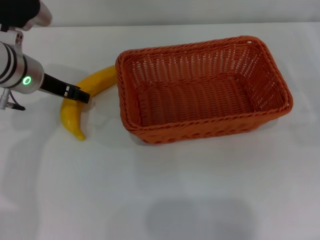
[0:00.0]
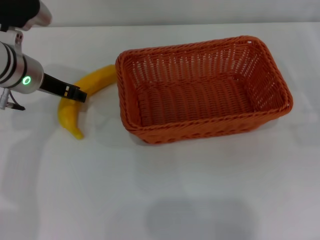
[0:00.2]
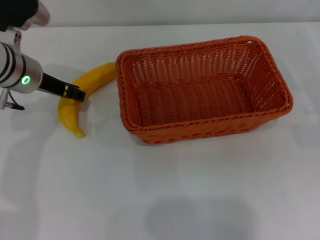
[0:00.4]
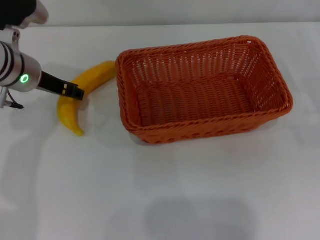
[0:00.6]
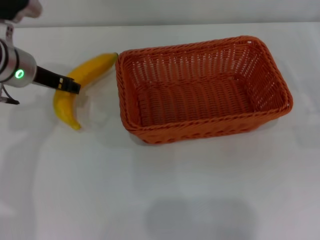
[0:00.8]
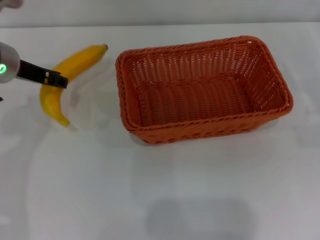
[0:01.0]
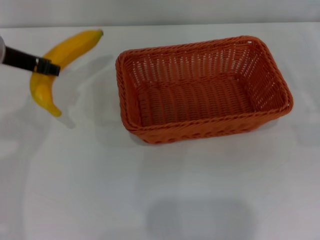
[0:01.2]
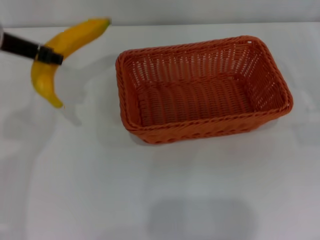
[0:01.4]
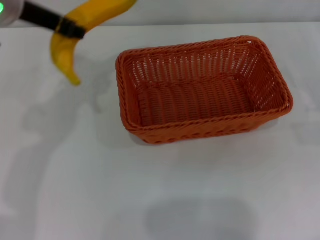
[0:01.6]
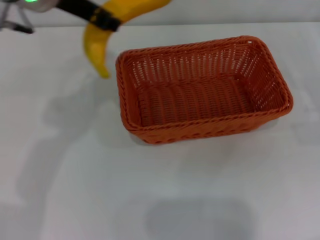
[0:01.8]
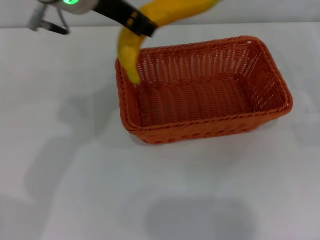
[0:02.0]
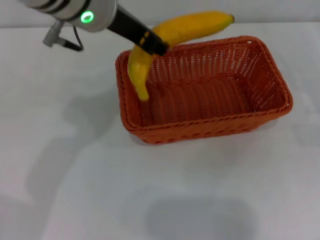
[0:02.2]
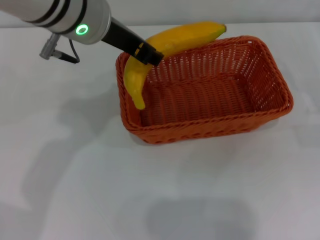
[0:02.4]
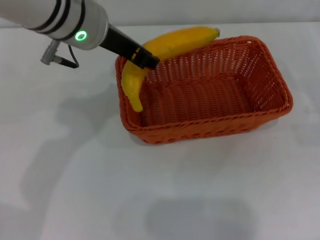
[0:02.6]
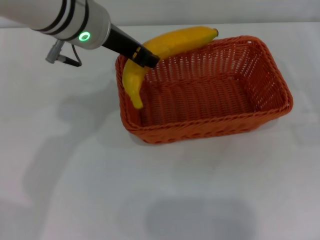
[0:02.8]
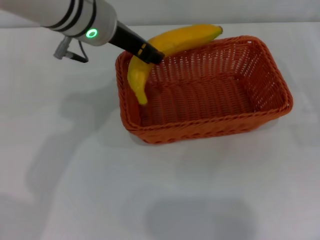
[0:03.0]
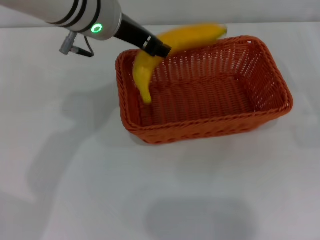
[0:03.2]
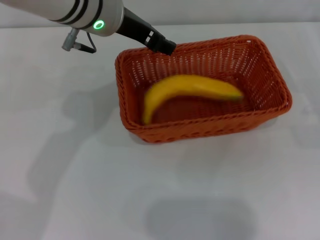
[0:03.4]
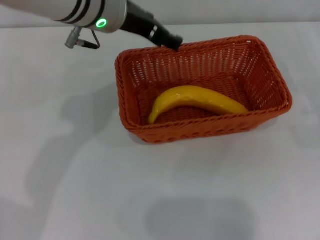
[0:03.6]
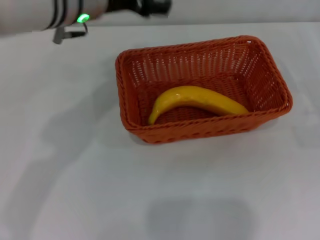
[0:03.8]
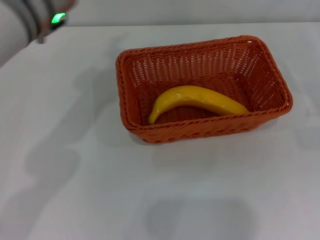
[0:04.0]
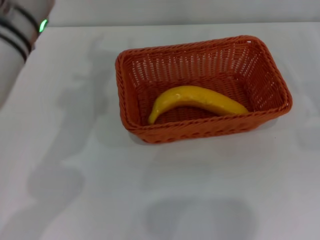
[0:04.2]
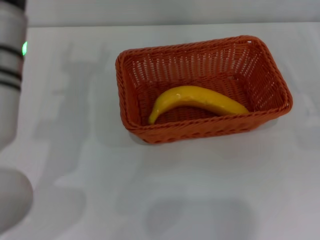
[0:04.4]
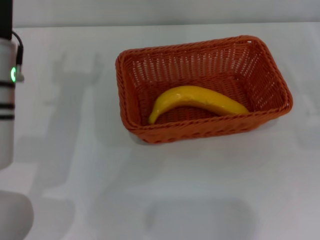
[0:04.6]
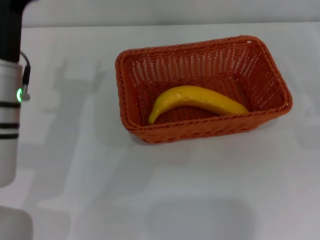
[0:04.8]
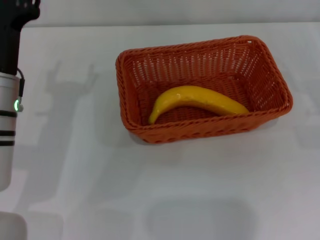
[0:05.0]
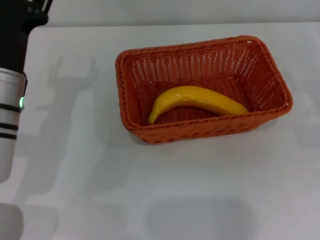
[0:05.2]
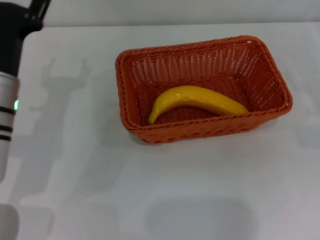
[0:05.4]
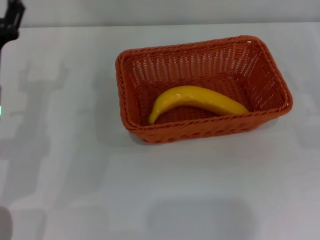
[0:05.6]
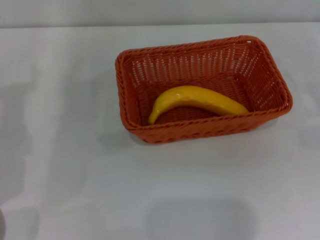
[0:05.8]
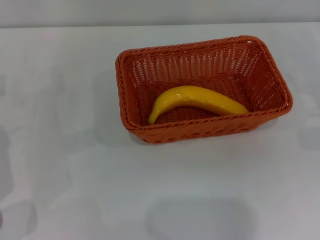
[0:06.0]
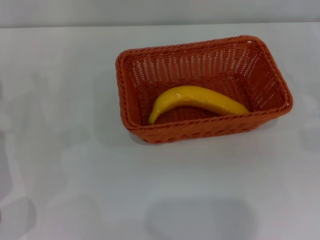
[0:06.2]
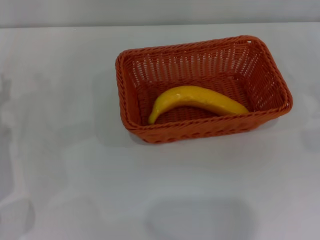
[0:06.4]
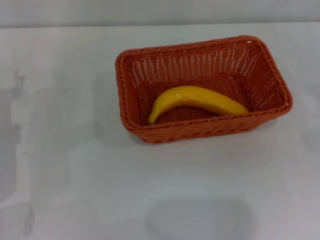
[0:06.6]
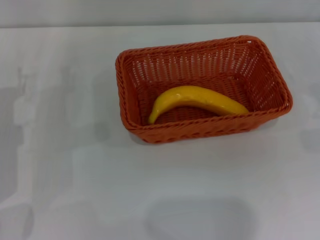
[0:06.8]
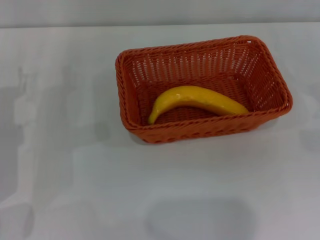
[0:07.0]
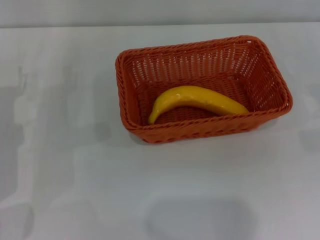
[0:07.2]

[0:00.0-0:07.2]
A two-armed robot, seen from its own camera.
Step, 0:01.2 to 0:03.4: Place the banana into the light basket with the left gripper.
0:00.0 to 0:01.4: The left gripper travels upward by about 10 cm, and closes up.
0:01.4 to 0:02.8: The left gripper moves to the right, approximately 10 cm.
0:02.8 to 0:04.4: The left gripper moves to the left and backward, approximately 10 cm, and opens its fingers.
0:04.4 to 0:05.8: The left gripper goes about 15 cm downward and to the left.

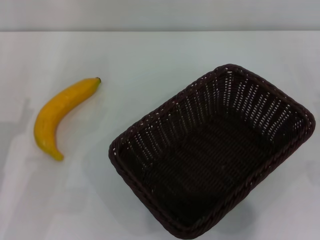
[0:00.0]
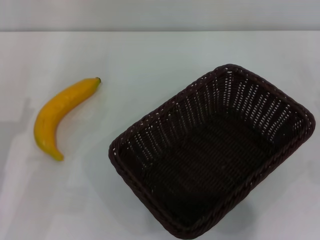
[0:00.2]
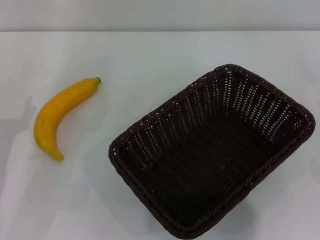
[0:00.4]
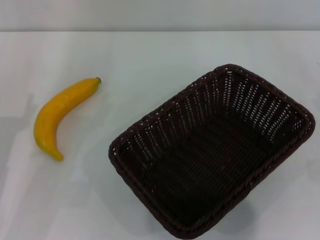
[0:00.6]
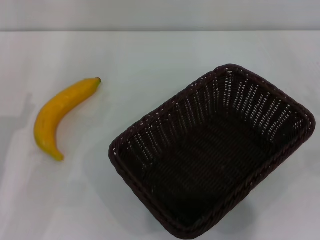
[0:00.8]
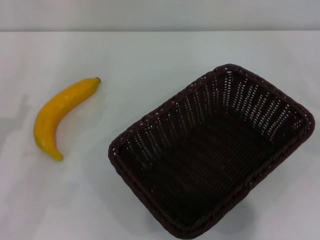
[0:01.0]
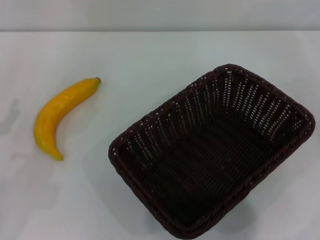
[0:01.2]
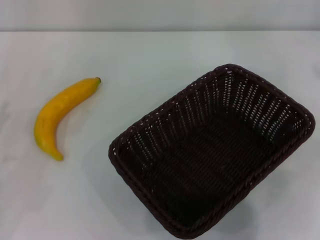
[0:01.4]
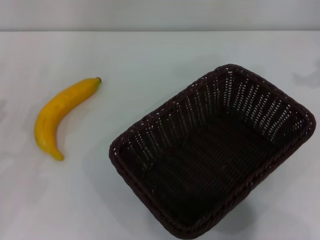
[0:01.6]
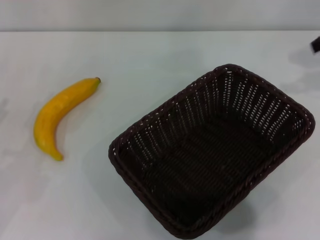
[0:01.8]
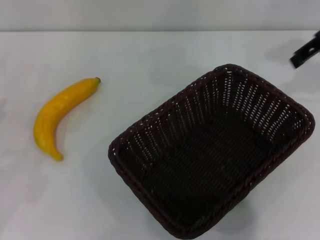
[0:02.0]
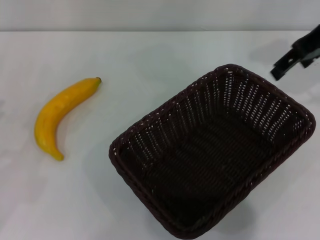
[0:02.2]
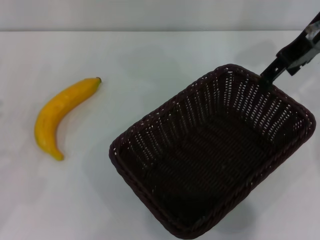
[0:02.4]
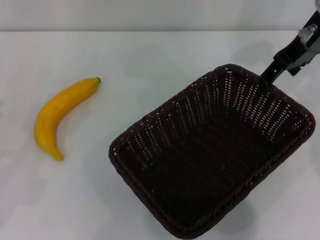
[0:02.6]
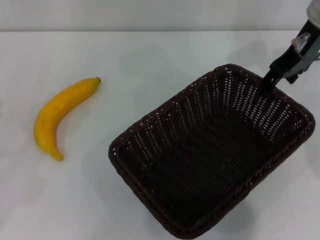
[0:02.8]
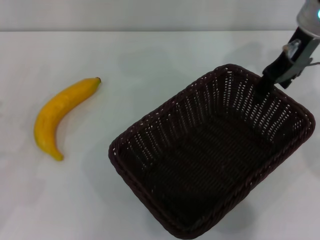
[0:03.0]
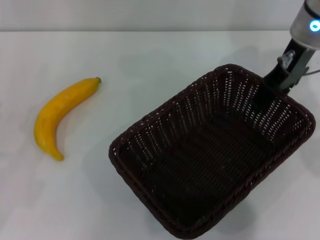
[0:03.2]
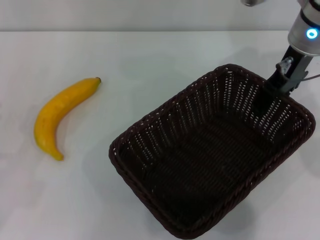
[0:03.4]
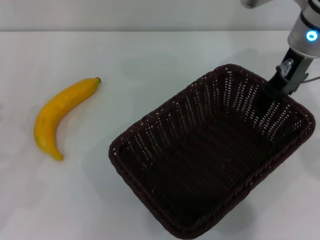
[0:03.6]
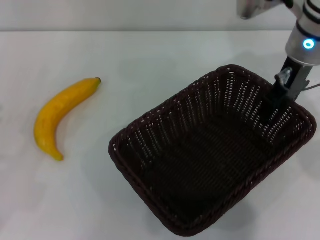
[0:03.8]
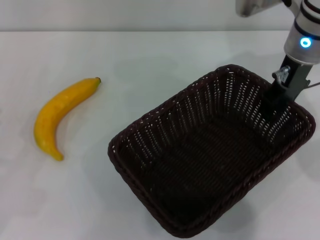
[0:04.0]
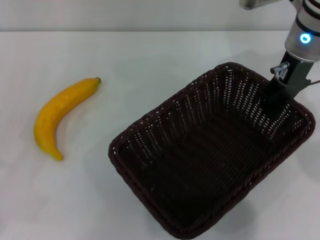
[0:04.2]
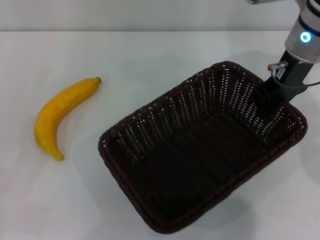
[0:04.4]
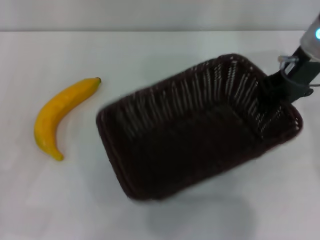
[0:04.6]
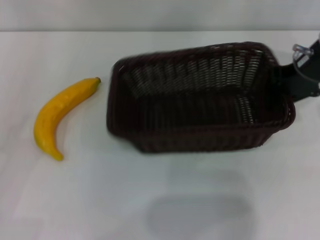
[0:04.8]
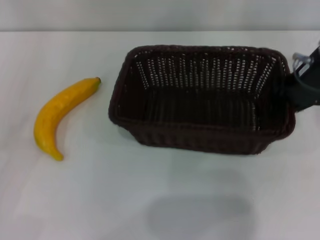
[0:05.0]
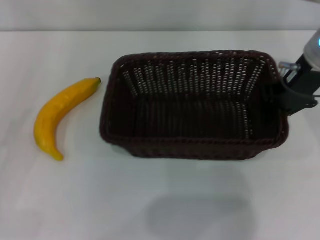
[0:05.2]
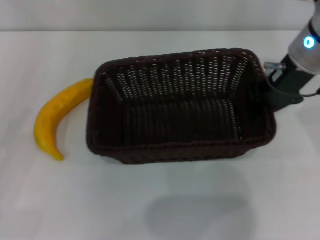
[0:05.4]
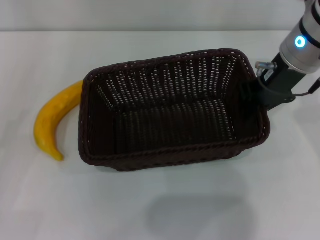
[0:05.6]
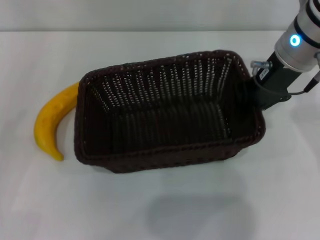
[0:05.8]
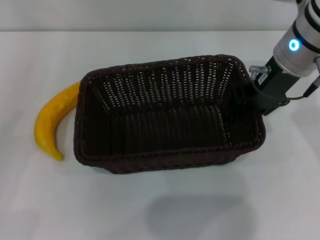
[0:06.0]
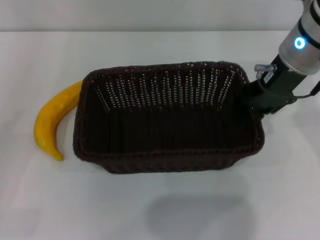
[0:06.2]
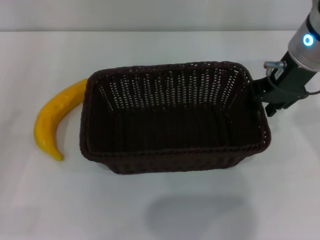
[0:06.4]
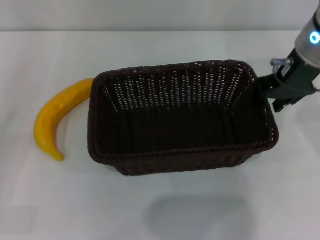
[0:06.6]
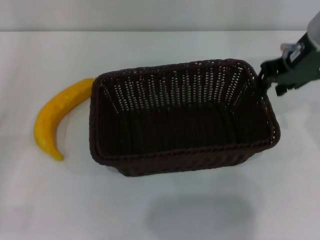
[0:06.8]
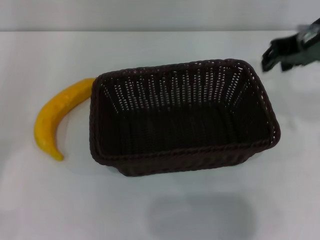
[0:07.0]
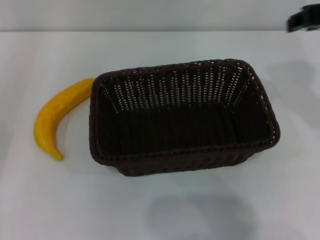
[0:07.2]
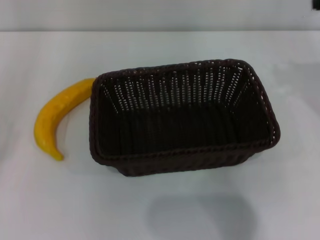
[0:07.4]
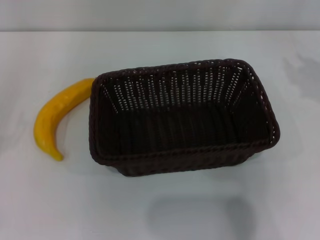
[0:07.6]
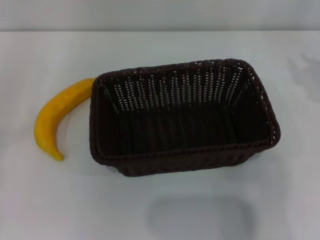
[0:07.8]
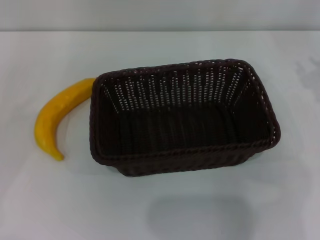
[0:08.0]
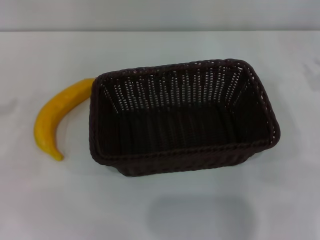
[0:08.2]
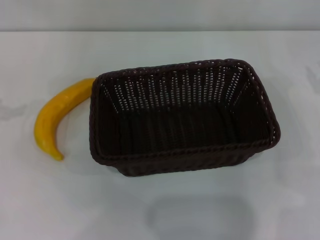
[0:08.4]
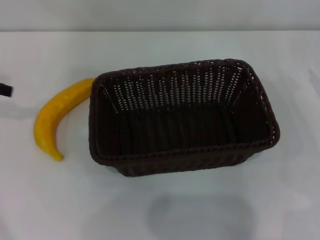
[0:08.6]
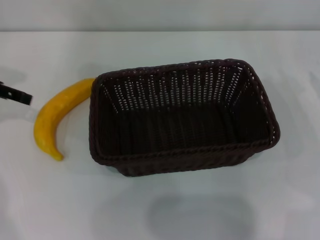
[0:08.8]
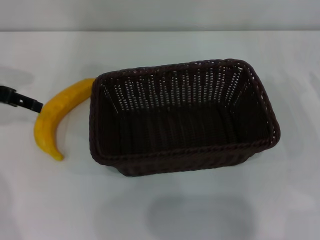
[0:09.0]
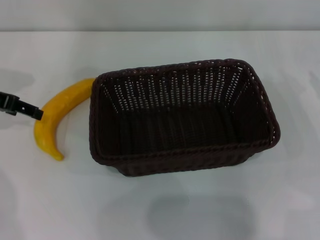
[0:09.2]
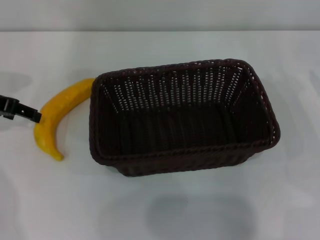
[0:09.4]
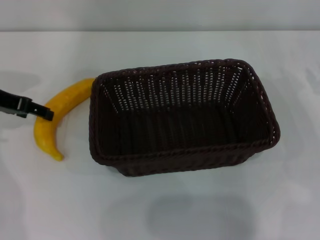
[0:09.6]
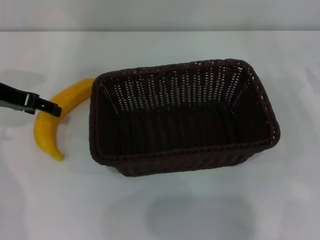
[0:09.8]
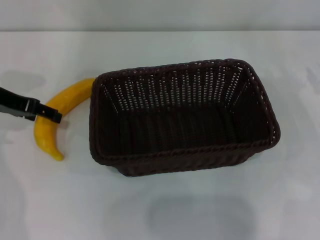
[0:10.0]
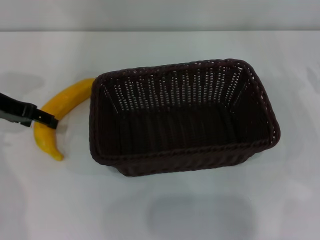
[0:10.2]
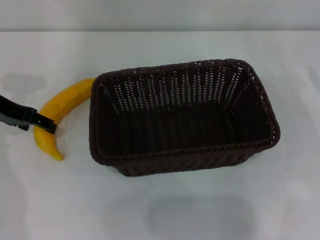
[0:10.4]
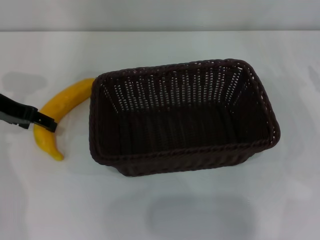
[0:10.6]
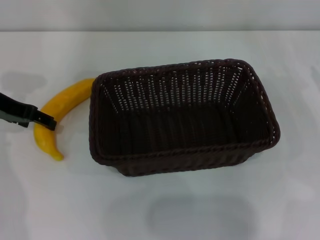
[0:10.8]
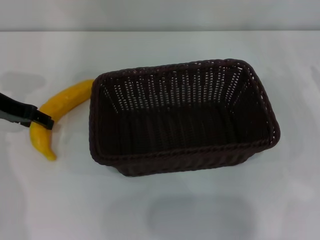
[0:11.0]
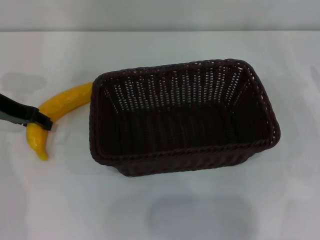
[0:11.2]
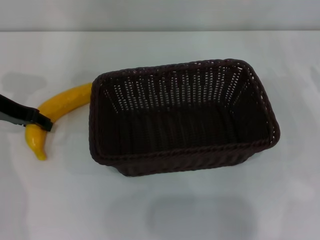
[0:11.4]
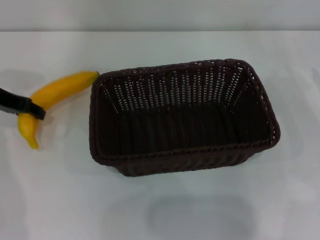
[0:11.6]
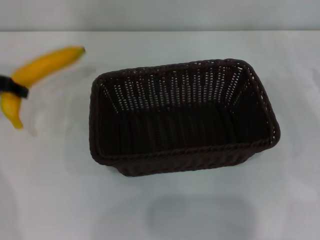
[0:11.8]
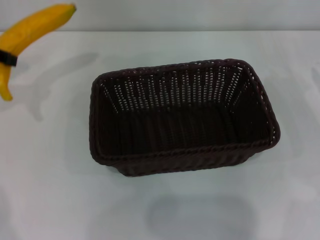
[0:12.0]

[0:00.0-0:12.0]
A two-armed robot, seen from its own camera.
Step, 0:00.0 to 0:04.2: Pick up the dark basket with the right gripper.
Step, 0:04.4 to 0:06.8: Place the dark basket in the center of view with the right gripper.
Step, 0:07.0 to 0:11.6: Pick up the banana with the left gripper.
0:01.6 to 0:03.0: The right gripper shifts some 15 cm to the left.
0:03.0 to 0:04.4: The right gripper closes its fingers.
0:06.0 to 0:07.6: The right gripper is displaced to the right and backward by about 15 cm.
0:07.6 to 0:09.0: The left gripper travels forward and to the right by some 25 cm.
0:09.0 to 0:10.4: The grippers make only small movements.
0:10.4 to 0:12.0: The left gripper travels upward by some 10 cm, and closes.

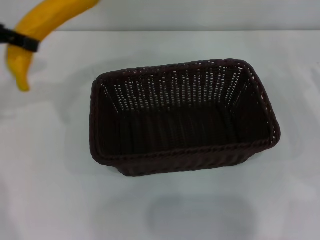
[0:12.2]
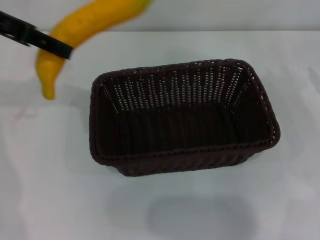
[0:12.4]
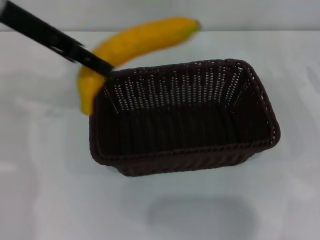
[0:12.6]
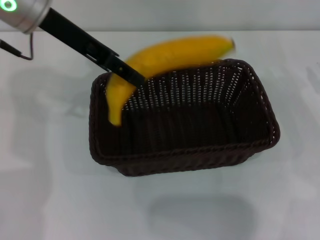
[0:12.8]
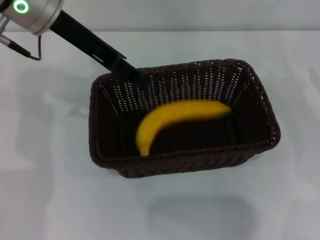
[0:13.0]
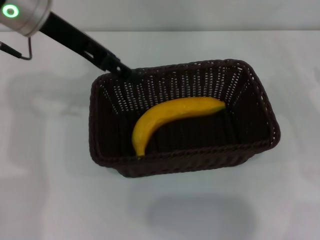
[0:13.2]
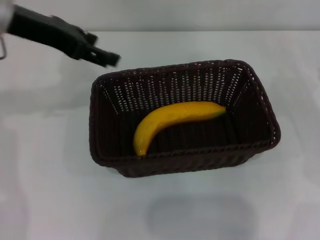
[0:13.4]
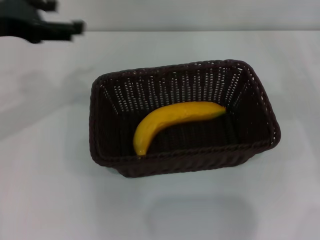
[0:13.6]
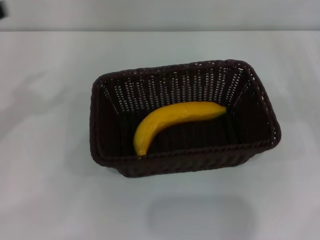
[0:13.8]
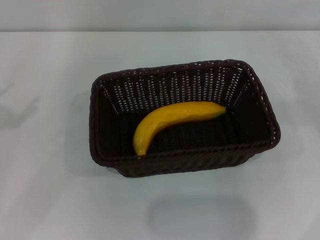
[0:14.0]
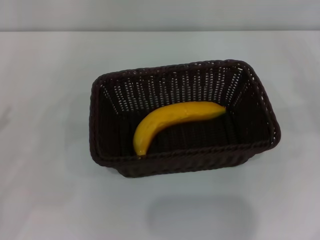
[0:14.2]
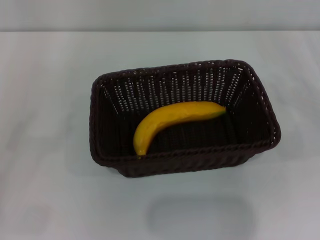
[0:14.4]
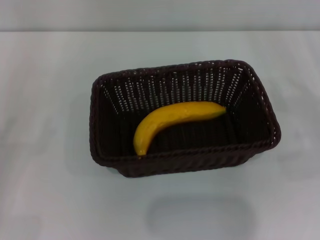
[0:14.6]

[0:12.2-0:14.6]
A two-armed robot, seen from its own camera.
Step, 0:12.2 to 0:13.0: Place the banana into the dark basket with the left gripper.
0:12.2 to 0:13.4: The left gripper shifts approximately 10 cm to the right, and opens its fingers.
0:13.4 to 0:14.6: The left gripper travels backward, downward and to the left by about 30 cm.
